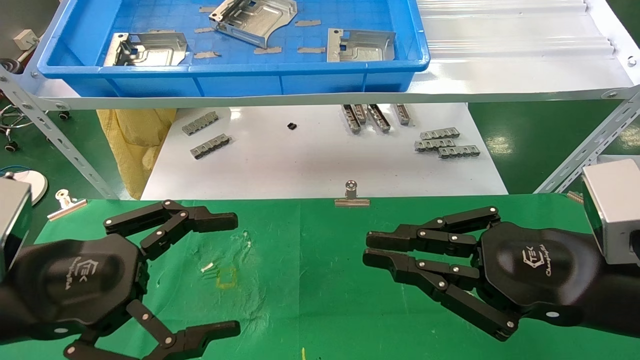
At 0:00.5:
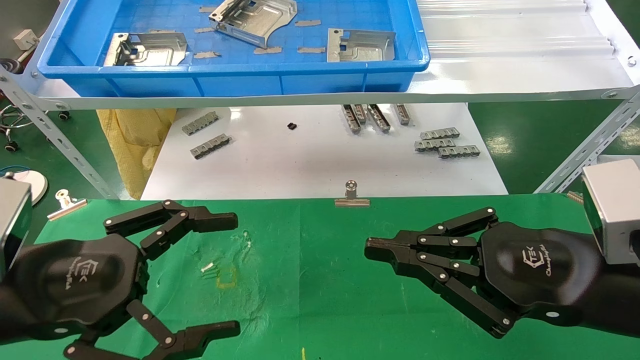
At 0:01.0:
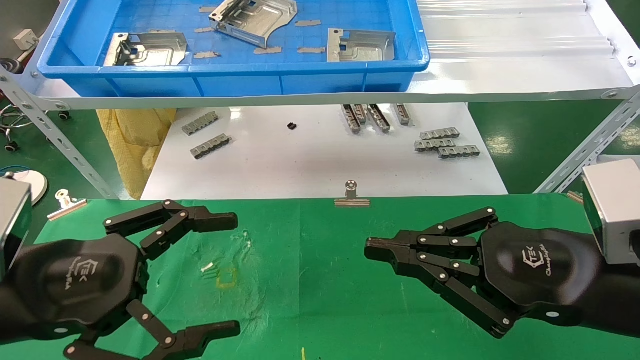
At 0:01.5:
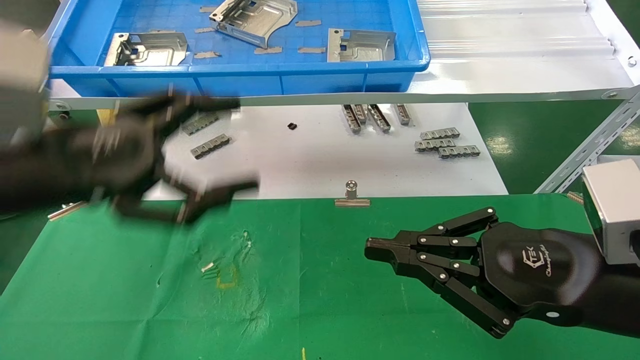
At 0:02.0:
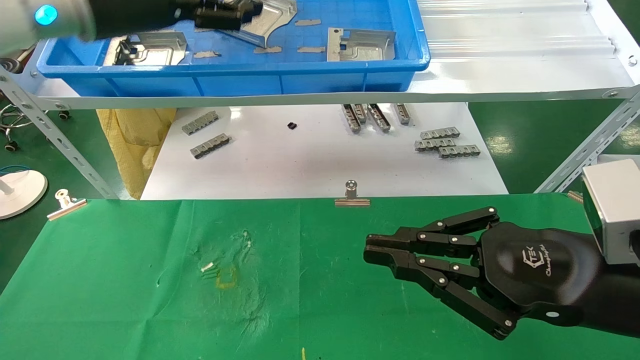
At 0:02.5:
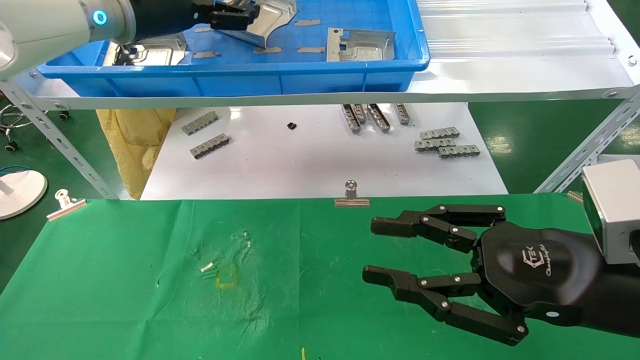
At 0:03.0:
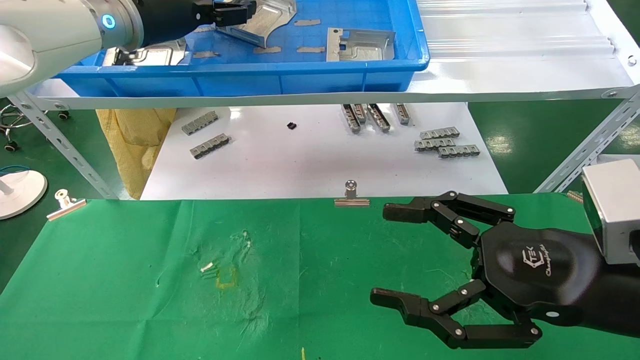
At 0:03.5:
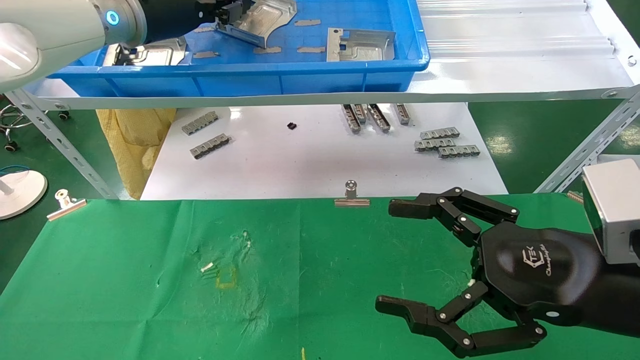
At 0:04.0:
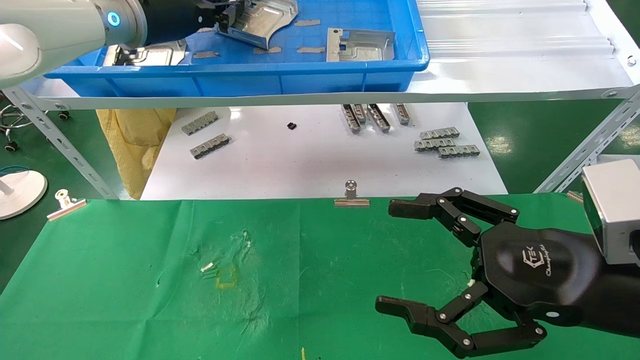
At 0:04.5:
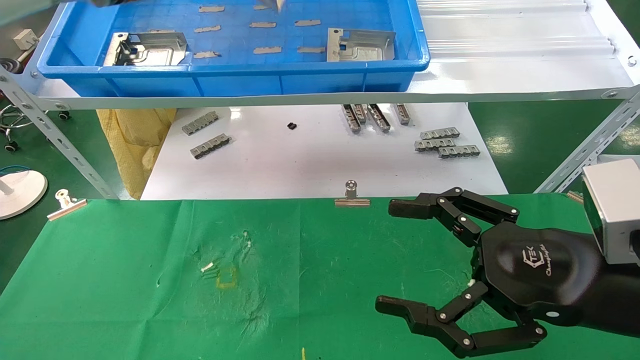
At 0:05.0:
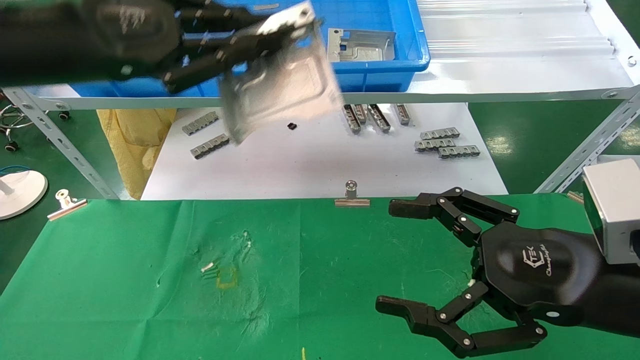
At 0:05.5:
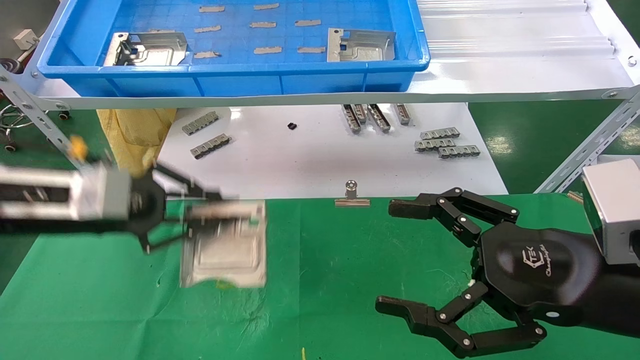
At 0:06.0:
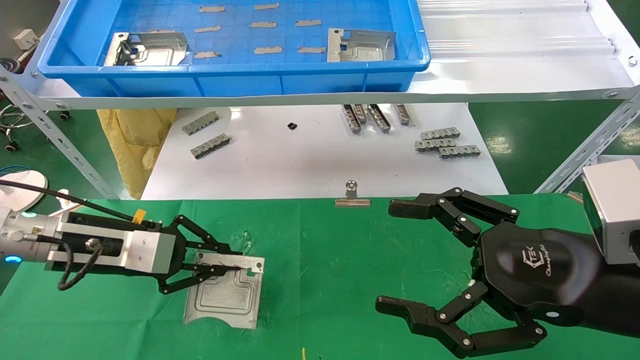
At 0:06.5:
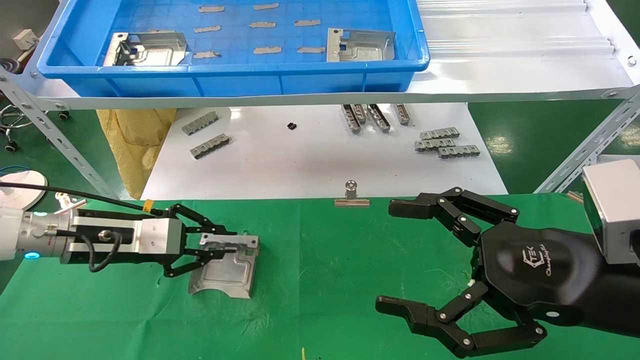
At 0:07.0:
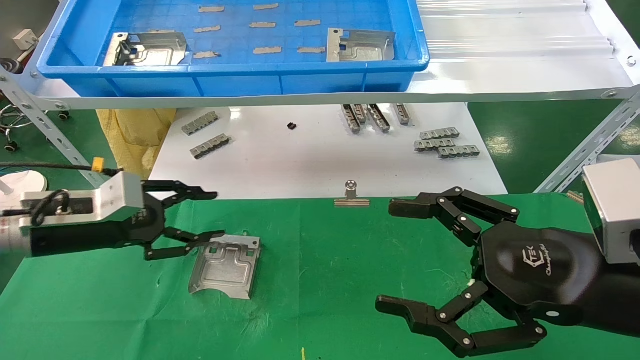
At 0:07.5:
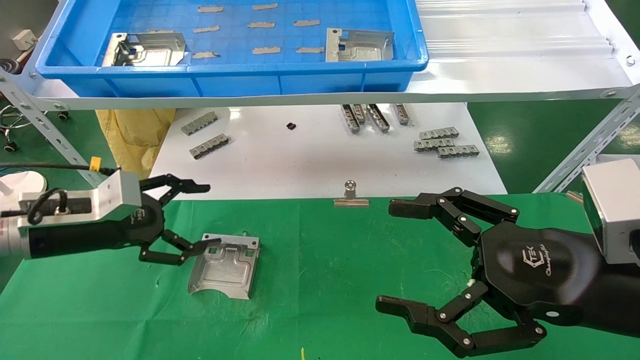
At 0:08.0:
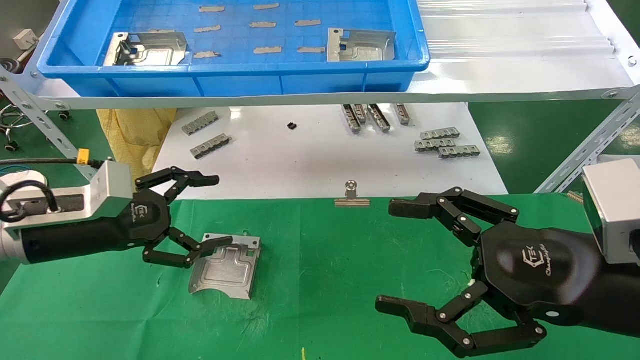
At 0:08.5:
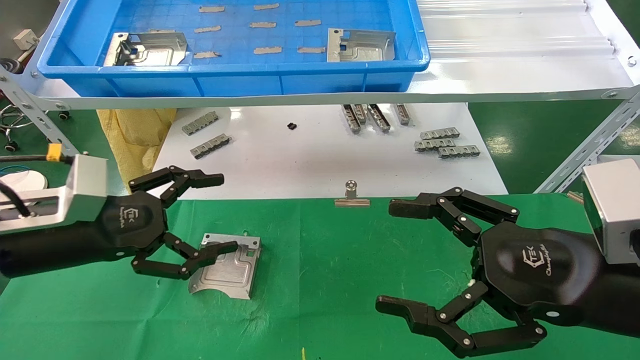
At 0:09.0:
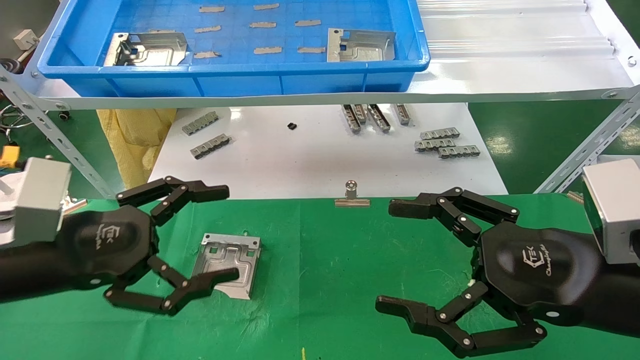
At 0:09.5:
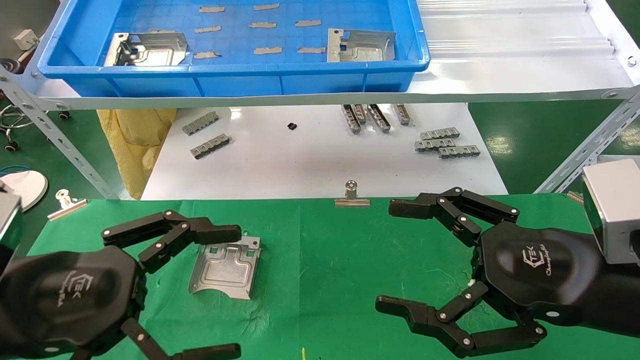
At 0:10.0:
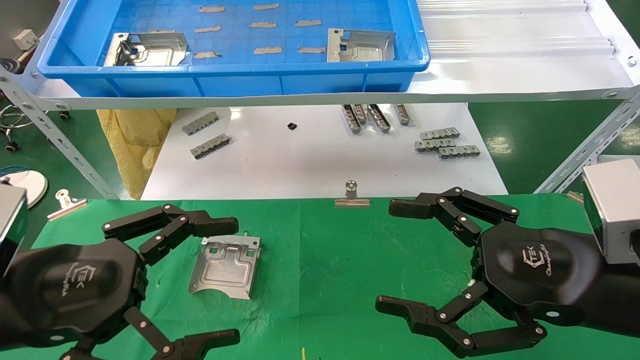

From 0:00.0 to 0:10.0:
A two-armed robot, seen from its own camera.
Task of the whole recording: use the mechanical arm to pick up the parts and place them on the table.
Step, from 0:02.0 to 0:04.0: Pick up the hard drive bracket from the feeding area.
Step, from 0:04.5 to 0:06.5: Place the hard drive bracket into the box.
From 0:00.0 to 0:02.0: The left gripper shifts approximately 30 cm upward and forward.
From 0:02.0 to 0:04.0: The left gripper changes place by roughly 5 cm, and closes, while the right gripper opens up.
From 0:04.0 to 0:06.0: The left gripper goes roughly 25 cm downward.
From 0:06.0 to 0:08.0: The left gripper opens its fingers.
From 0:08.0 to 0:10.0: The left gripper shifts roughly 15 cm backward.

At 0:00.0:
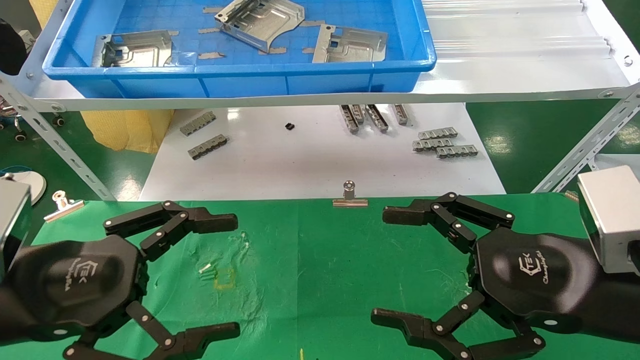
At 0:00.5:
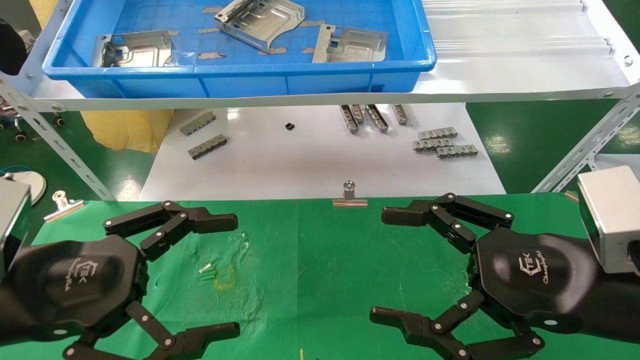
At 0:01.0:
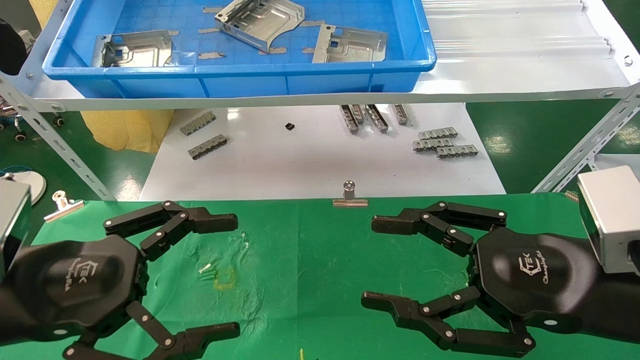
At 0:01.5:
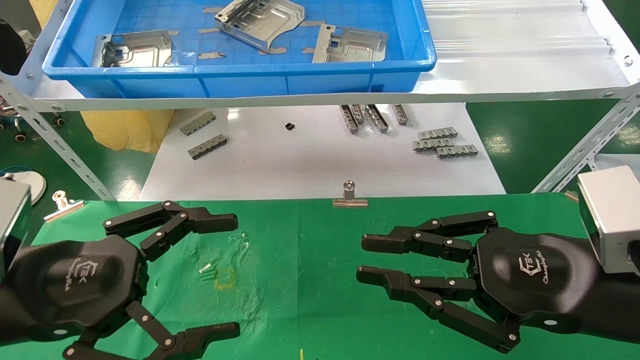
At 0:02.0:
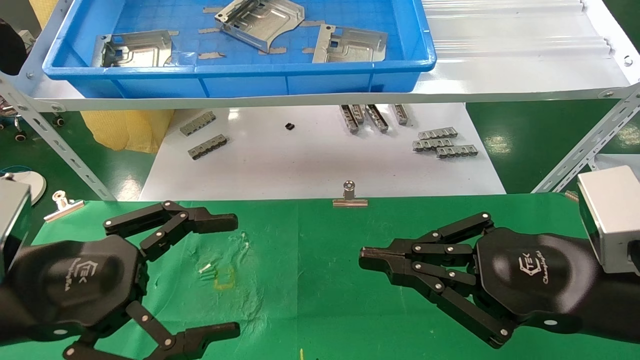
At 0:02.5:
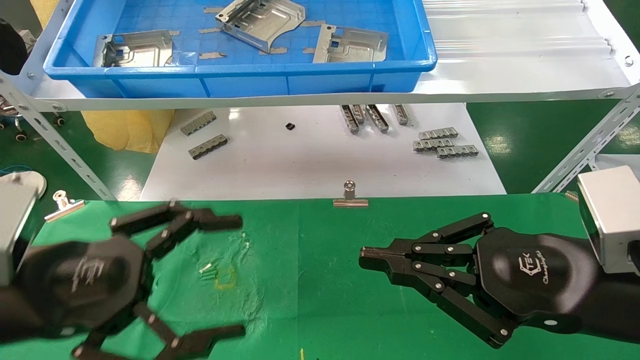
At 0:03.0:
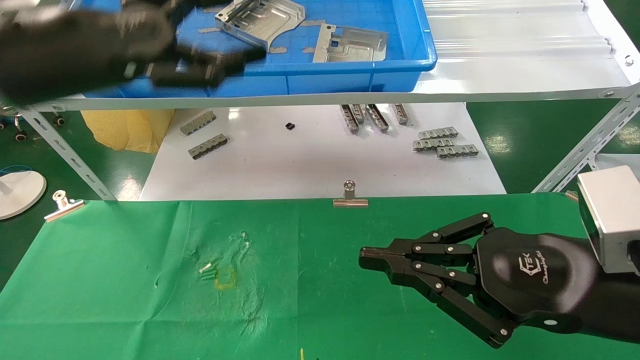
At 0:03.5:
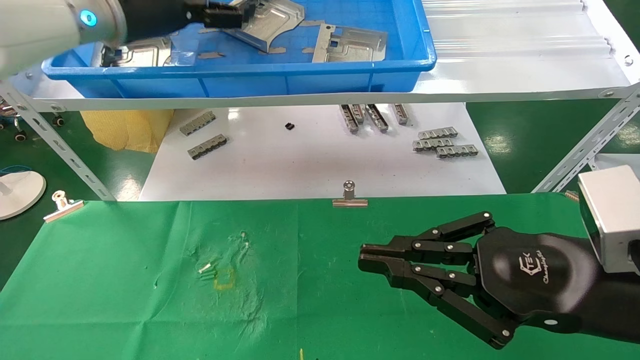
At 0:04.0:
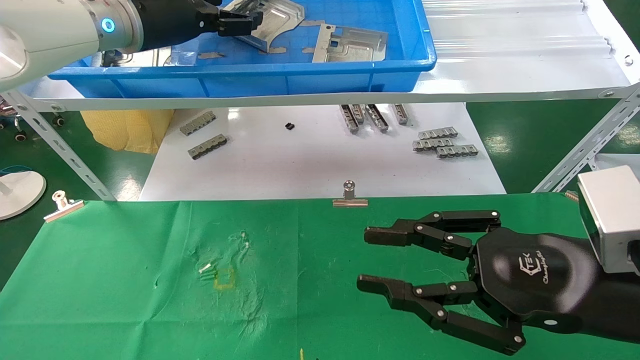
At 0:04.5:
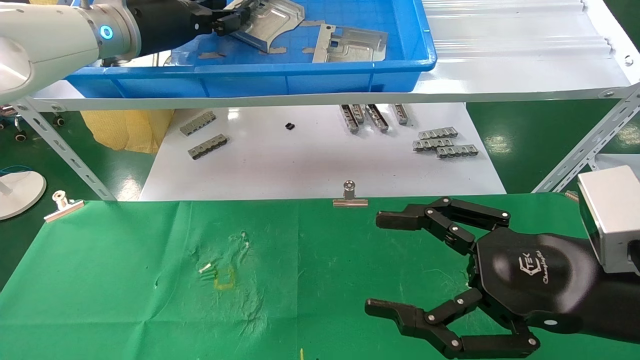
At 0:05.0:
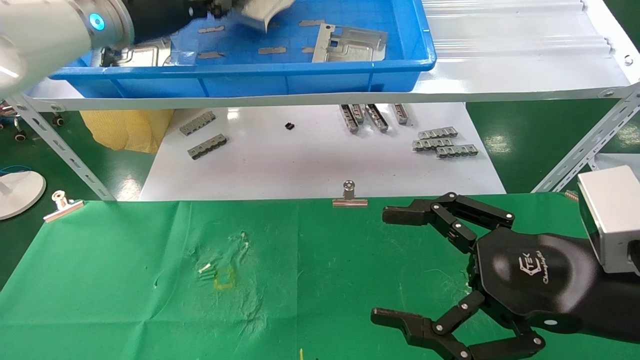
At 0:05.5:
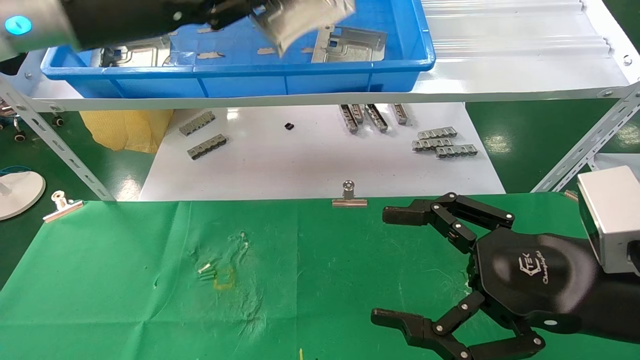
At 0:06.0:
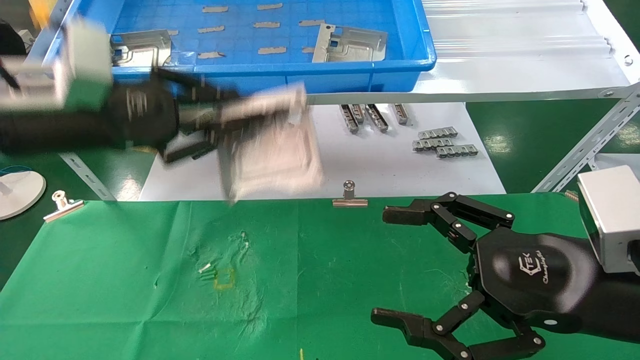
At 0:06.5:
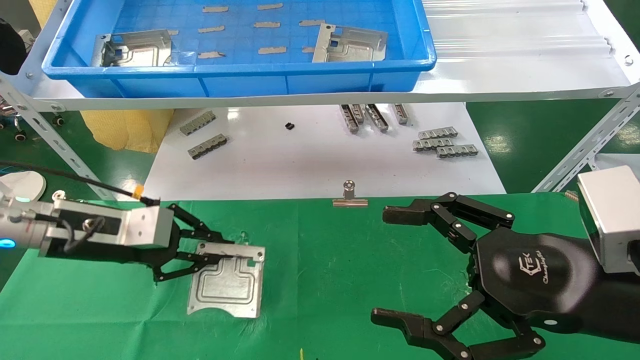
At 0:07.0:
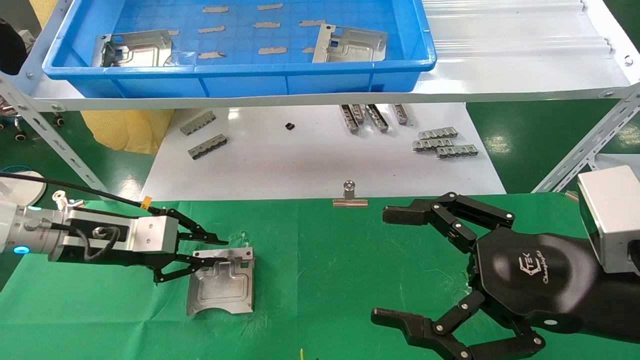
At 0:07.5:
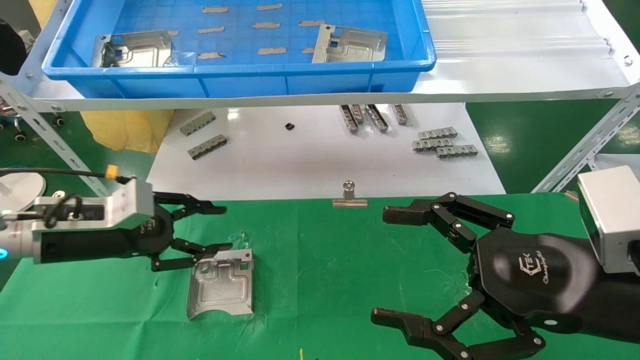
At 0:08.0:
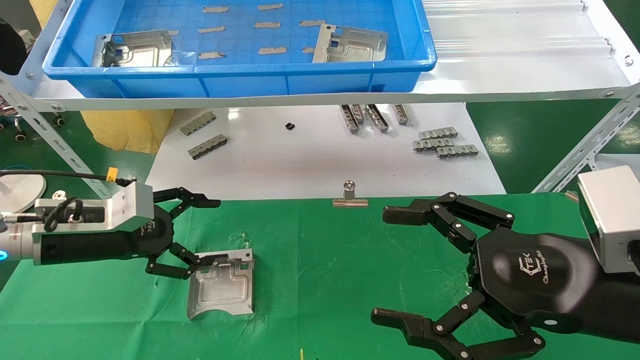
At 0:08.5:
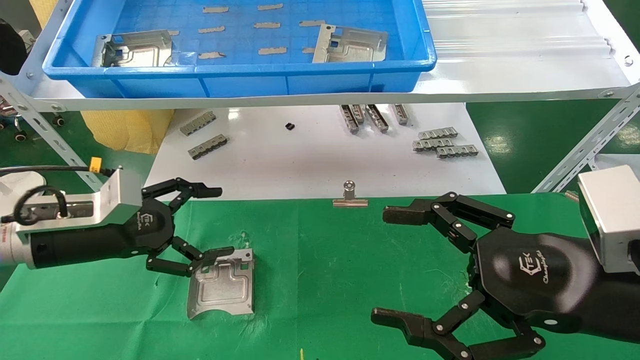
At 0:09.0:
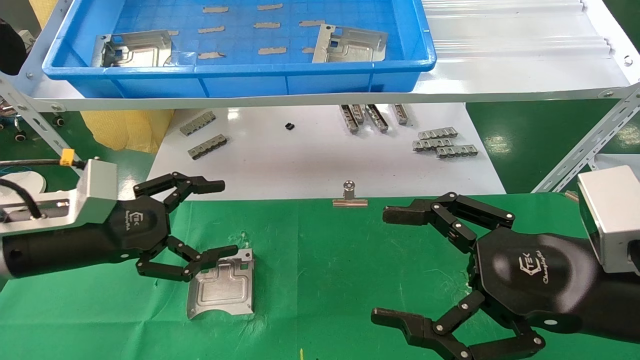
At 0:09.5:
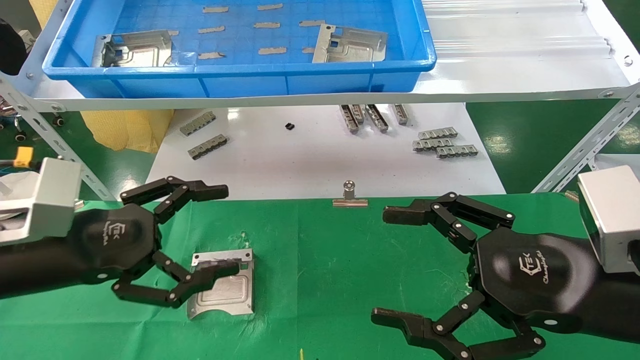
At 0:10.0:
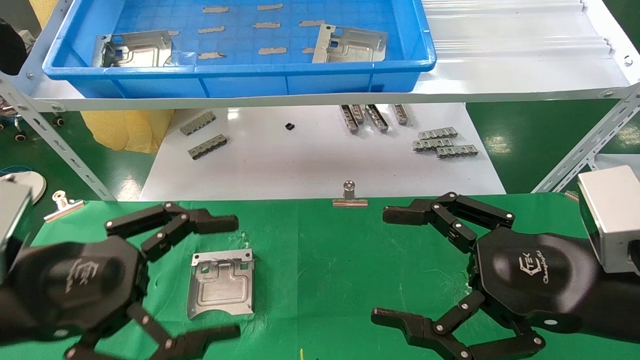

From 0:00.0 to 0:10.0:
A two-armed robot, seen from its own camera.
Task of the whole recording: use the mechanical arm to pick up the parts and place them on the table.
Step, from 0:03.0 to 0:04.5: Pick up the hard drive bracket from the feeding area.
Step, from 0:05.0 to 0:07.0: Place the hard drive bracket into the box.
From 0:00.0 to 0:02.0: The right gripper closes.
From 0:02.0 to 0:04.0: The left gripper is displaced forward and upward by some 35 cm.
From 0:04.0 to 0:06.0: The left gripper is displaced backward, downward and to the left by some 15 cm, and closes. The right gripper opens up.
From 0:06.0 to 0:08.0: The left gripper shifts approximately 15 cm downward, and opens up.
From 0:08.0 to 0:10.0: The left gripper moves backward, roughly 15 cm.
